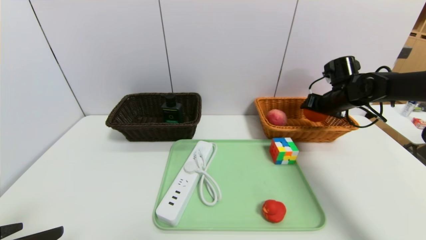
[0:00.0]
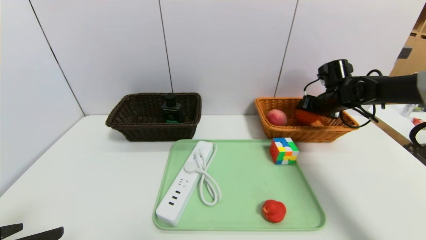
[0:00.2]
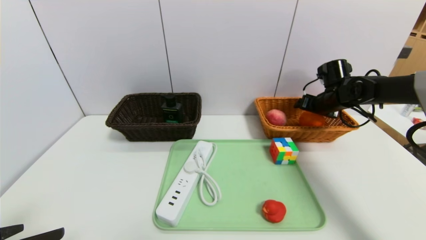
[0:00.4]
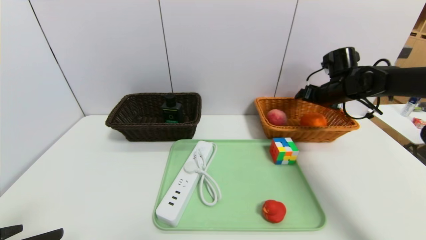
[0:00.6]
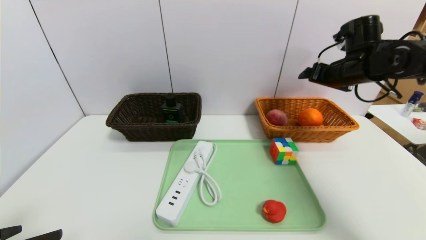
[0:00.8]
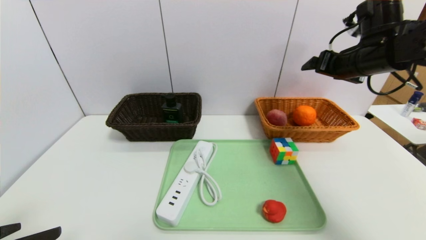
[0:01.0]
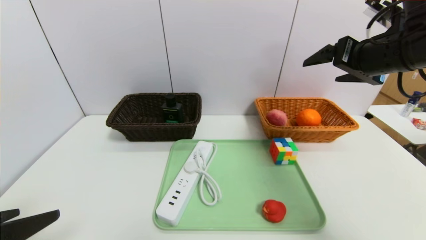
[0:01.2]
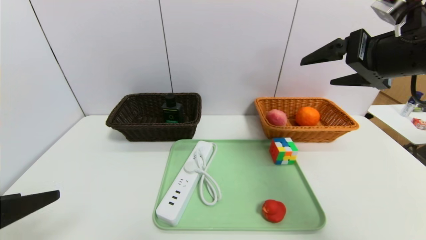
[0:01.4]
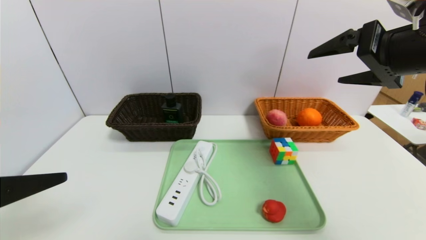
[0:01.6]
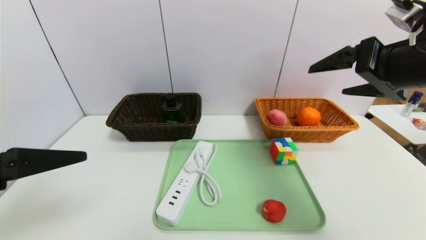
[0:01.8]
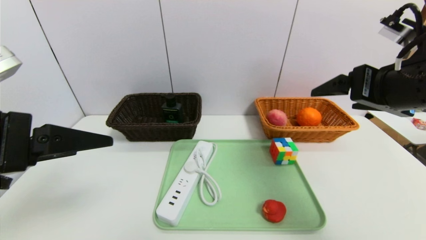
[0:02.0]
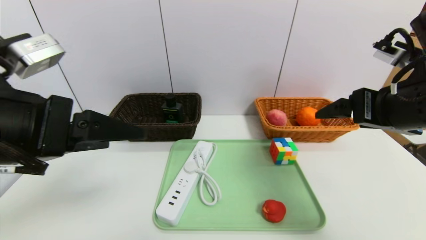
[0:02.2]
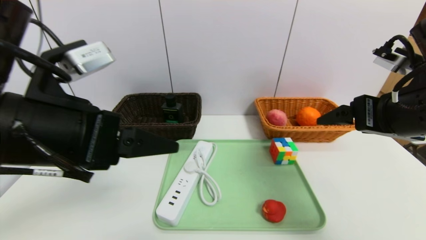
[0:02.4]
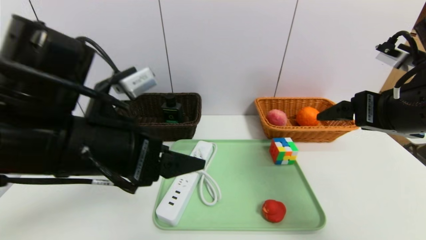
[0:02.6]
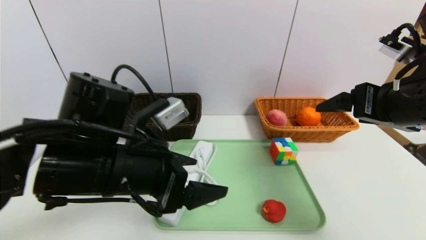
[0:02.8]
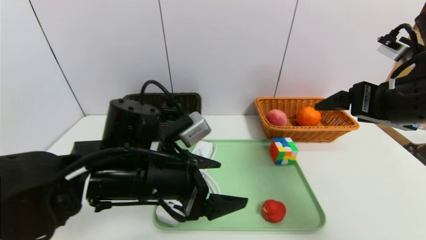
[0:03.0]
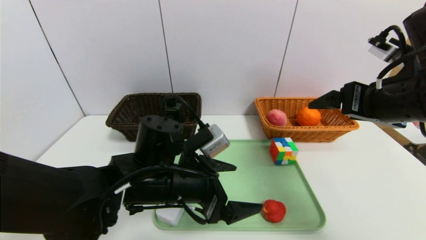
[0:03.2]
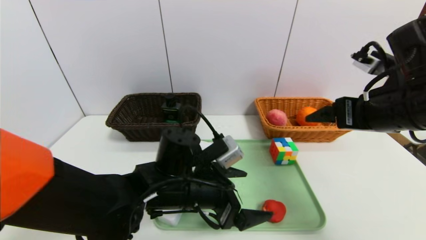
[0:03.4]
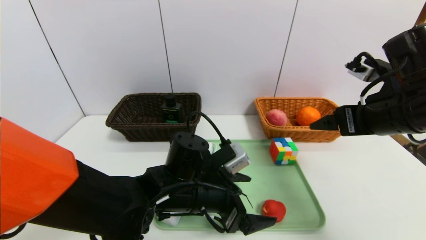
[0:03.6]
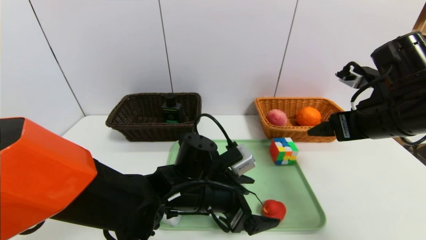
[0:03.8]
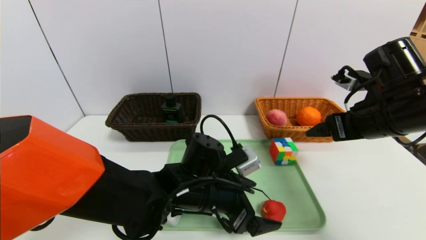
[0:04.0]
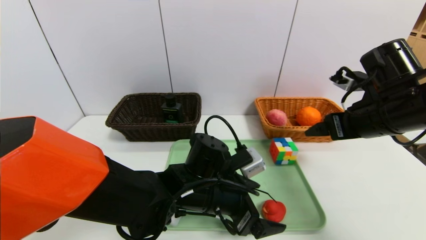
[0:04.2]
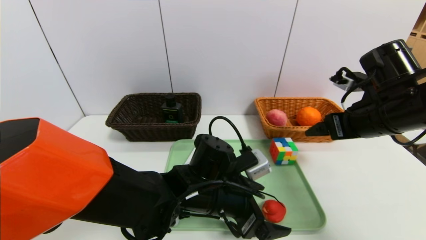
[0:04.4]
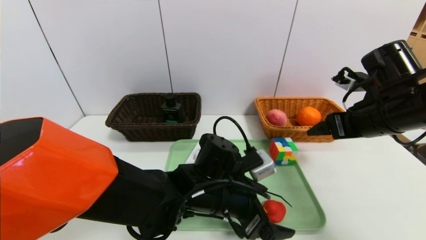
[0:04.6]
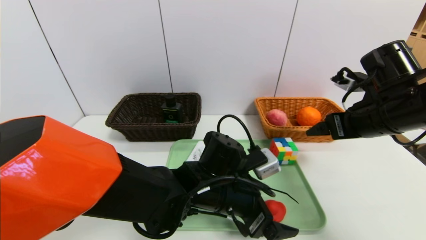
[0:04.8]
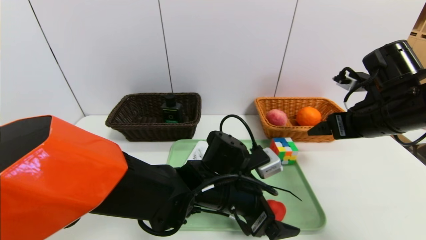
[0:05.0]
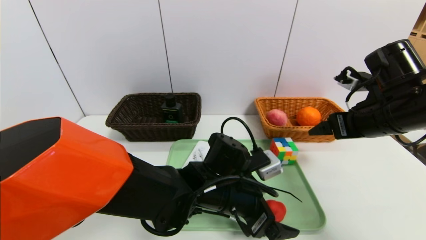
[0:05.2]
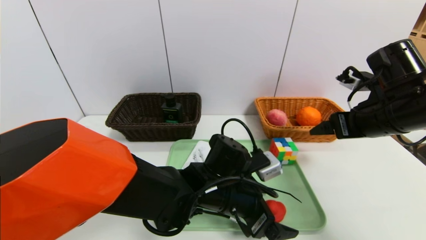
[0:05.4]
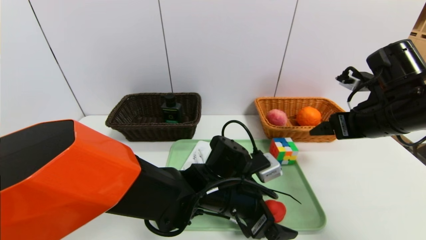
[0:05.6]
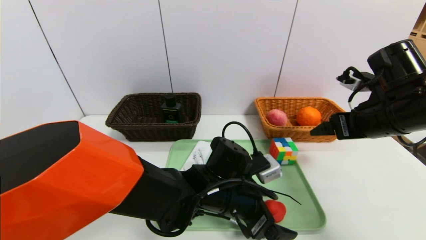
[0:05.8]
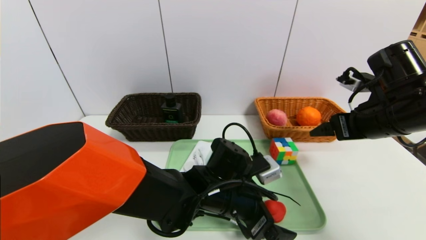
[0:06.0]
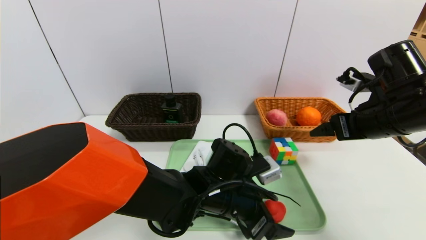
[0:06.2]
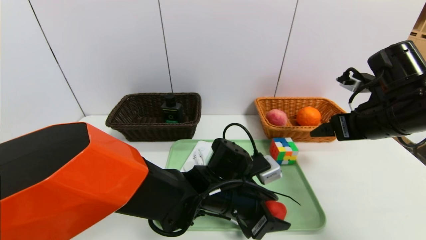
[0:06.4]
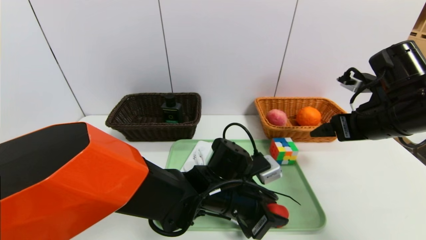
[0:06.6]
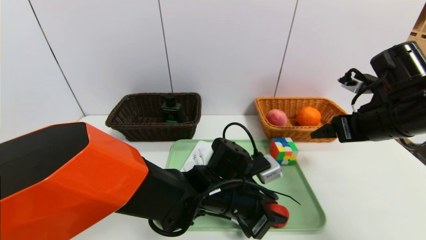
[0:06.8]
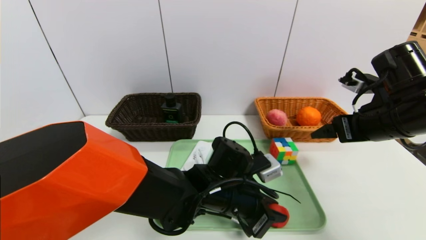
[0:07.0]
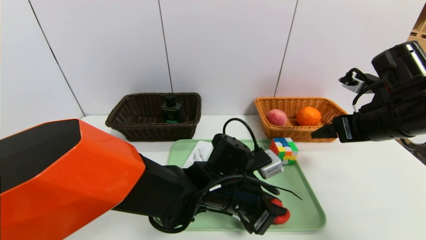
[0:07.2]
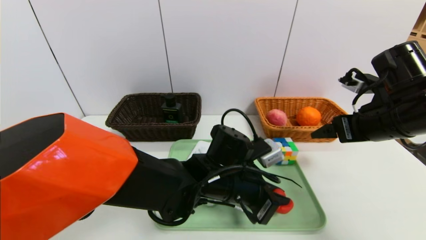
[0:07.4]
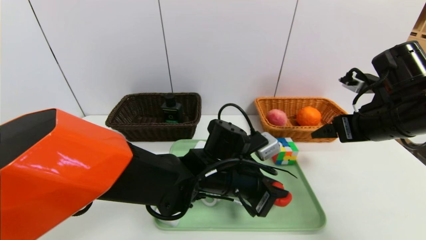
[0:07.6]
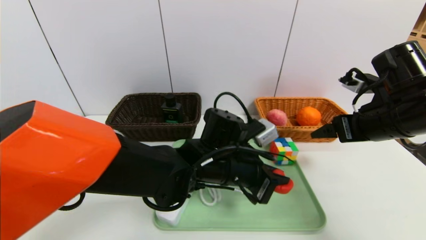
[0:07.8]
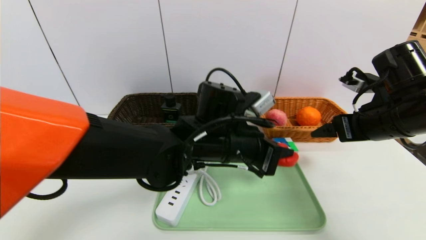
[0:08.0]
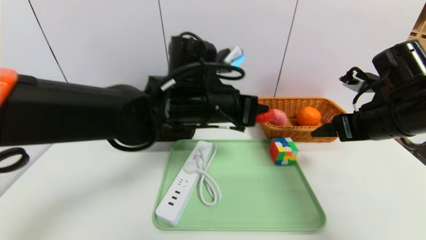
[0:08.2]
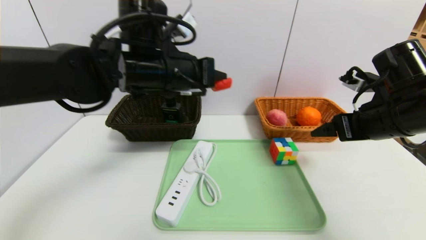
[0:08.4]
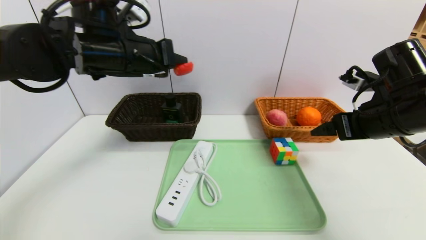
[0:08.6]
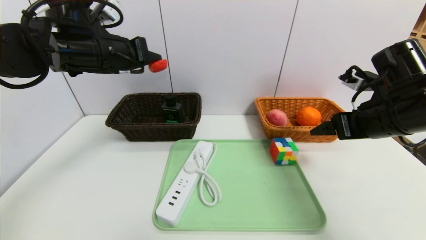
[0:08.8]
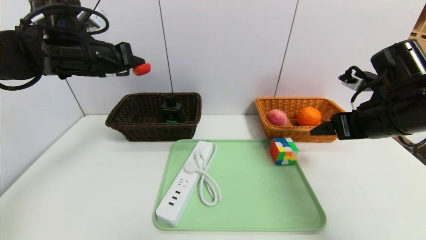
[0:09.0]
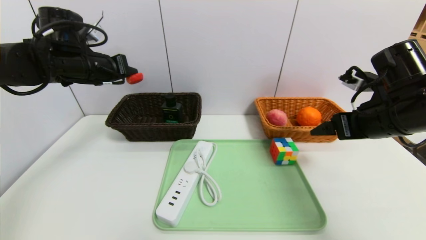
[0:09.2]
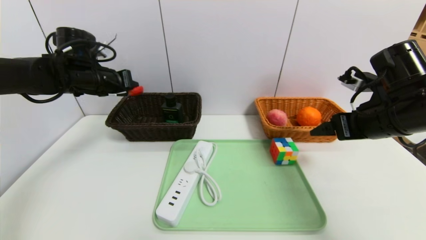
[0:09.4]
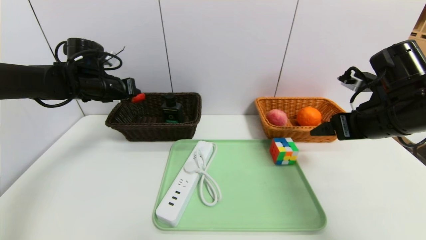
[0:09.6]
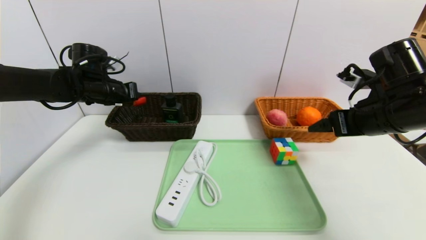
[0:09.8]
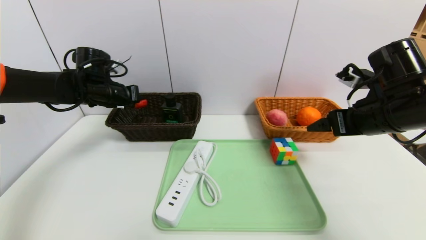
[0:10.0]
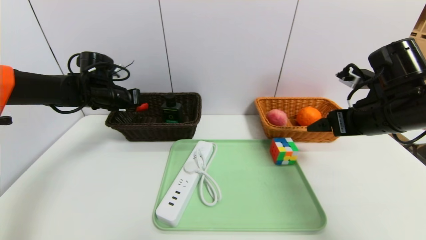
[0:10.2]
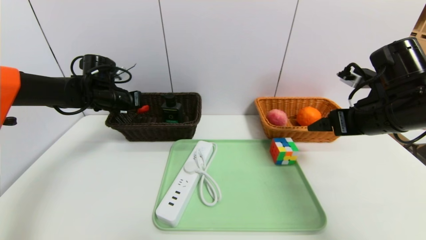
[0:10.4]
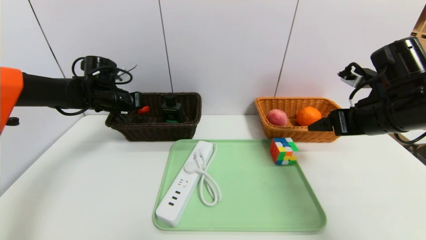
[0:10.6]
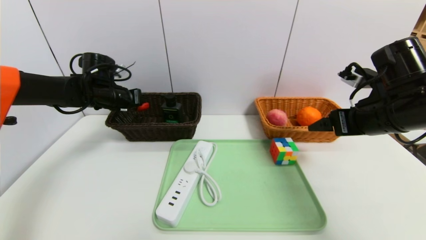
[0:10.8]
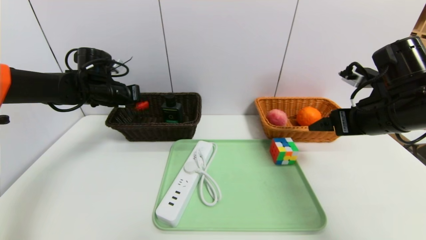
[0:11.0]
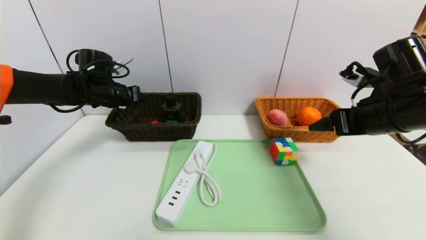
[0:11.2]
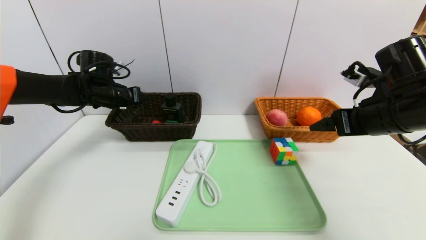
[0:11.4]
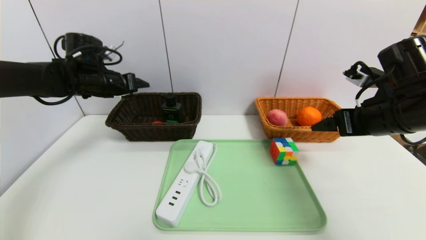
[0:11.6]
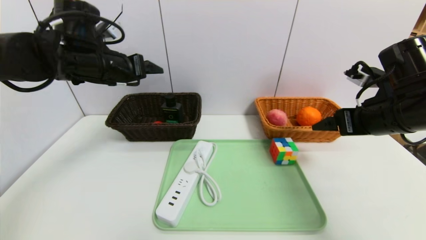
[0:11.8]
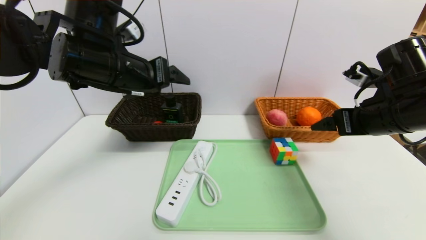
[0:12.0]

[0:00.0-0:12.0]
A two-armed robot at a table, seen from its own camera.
Task of the whole recording: place the food in the right basket with the right gripper, and place the non food items in the left basket with the left gripper.
Step, 0:00.6 to 0:11.4: Grasp the red duck and put it in the left basket.
0:00.0 to 0:01.6: The right gripper travels backward and upward by about 25 cm, and opens, while the left gripper goes roughly 5 cm upward.
0:01.6 to 0:03.0: The left gripper heads to the right, forward and downward, covering about 25 cm, while the right gripper goes approximately 5 cm downward.
0:03.0 to 0:04.4: The left gripper travels to the right and downward by some 10 cm. Meanwhile the right gripper is displaced forward and downward by approximately 10 cm.
0:04.4 to 0:06.0: The grippers make only small movements.
0:06.0 to 0:07.6: The left gripper closes.
0:07.6 to 0:09.0: The left gripper moves to the left and upward, about 30 cm.
0:09.0 to 0:10.4: The left gripper moves downward and forward, some 15 cm.
0:10.4 to 0:12.0: The left gripper moves backward, to the right and upward, some 25 cm, and opens its fingers.

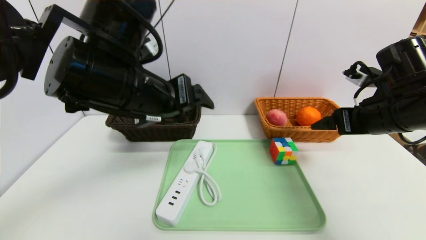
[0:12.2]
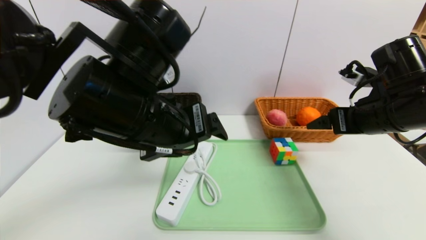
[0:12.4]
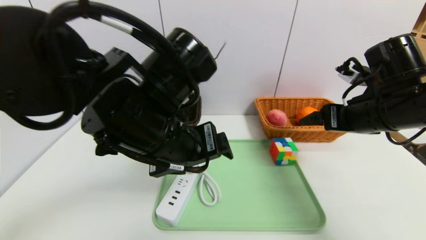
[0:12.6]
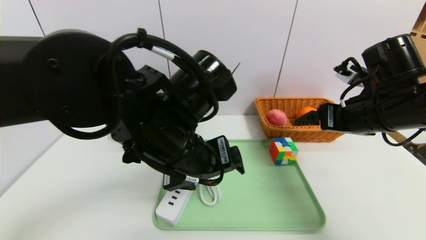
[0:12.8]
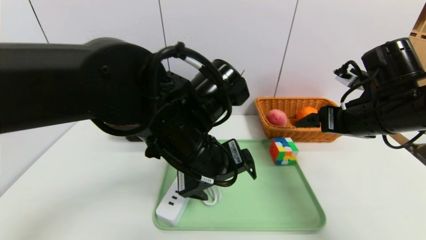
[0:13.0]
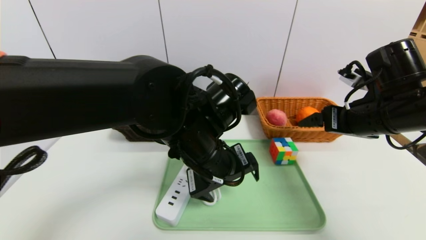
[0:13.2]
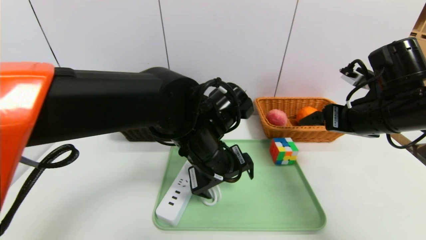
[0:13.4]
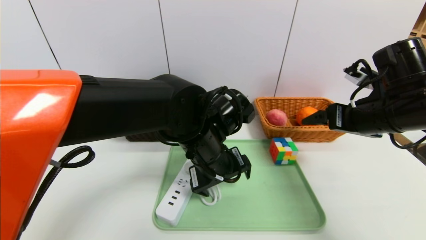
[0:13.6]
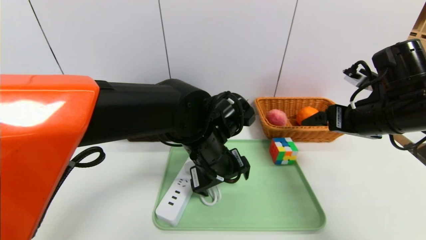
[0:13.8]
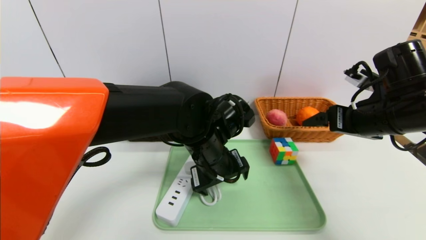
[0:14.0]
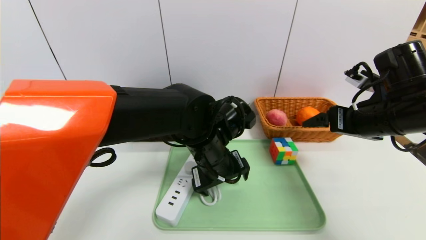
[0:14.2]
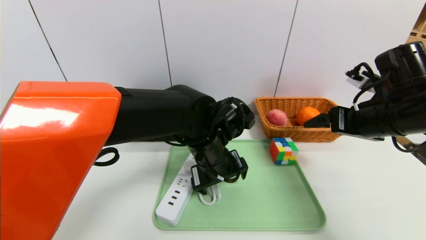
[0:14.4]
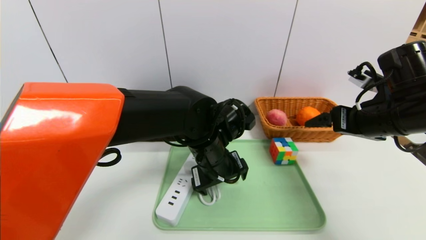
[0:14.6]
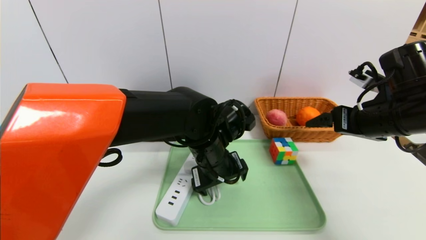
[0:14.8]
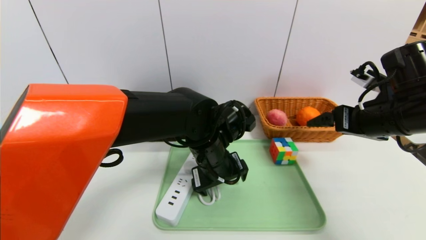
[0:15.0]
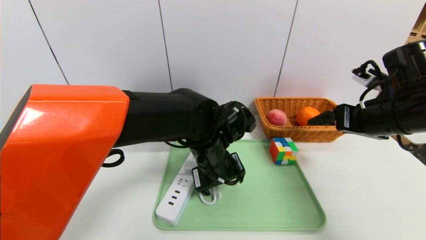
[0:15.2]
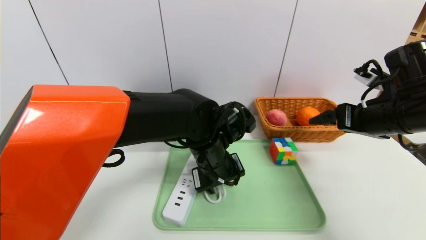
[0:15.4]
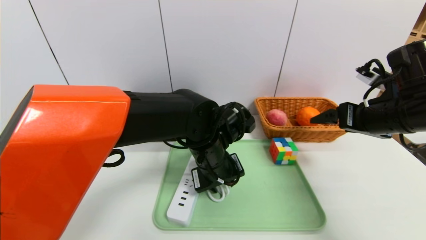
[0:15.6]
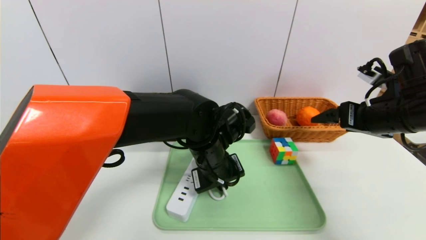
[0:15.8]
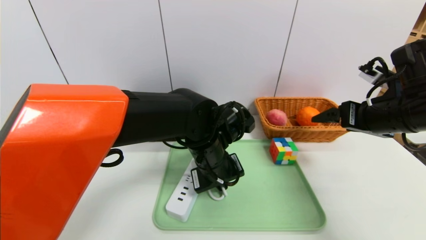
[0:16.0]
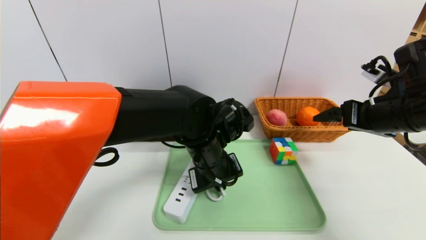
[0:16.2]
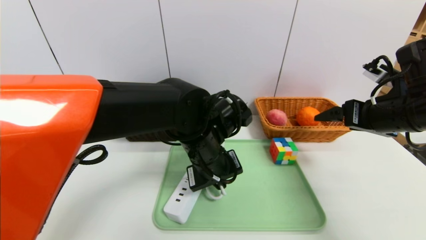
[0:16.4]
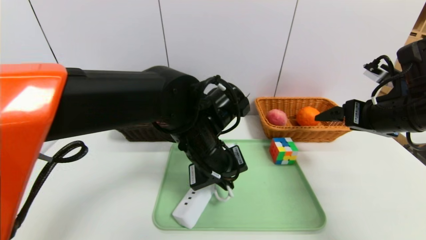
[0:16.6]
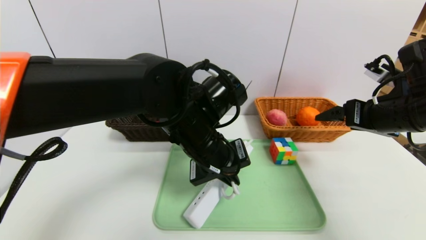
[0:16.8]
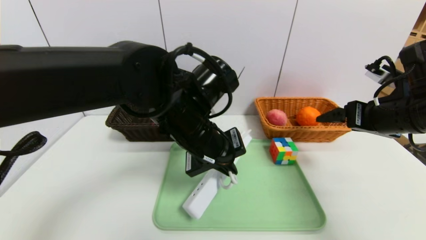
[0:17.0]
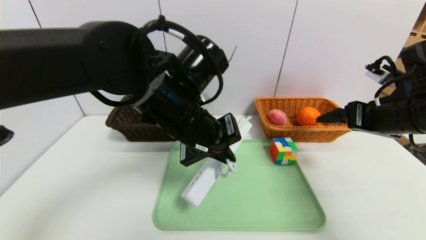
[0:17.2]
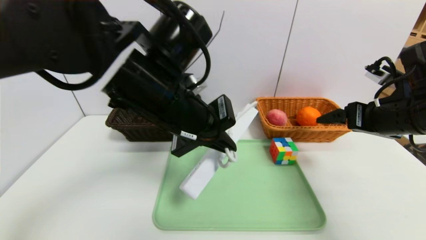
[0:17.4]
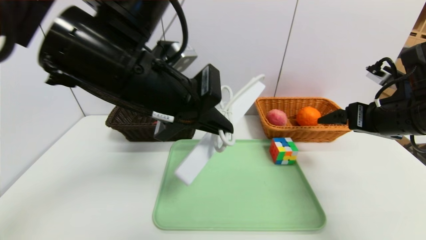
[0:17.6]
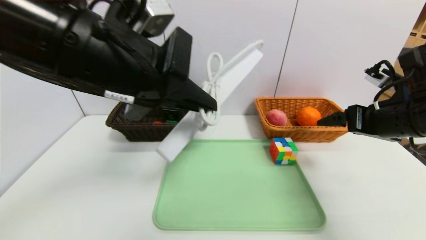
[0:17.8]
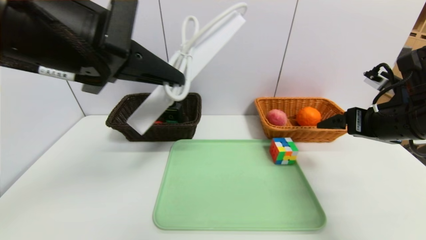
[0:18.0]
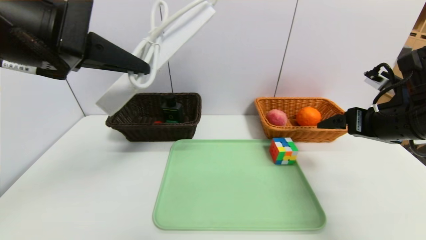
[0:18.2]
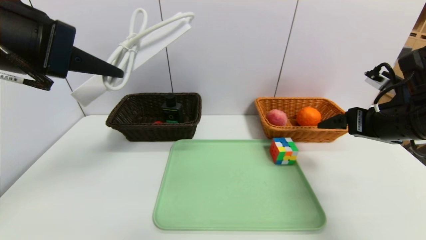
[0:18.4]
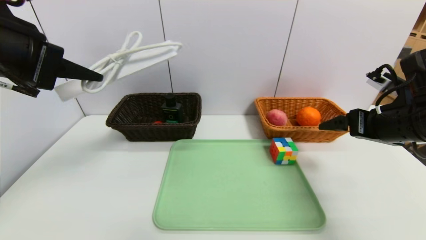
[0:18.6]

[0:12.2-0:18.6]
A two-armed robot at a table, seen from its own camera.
Task of the whole recording: place the food in the right basket with the right gripper, and place the non food items in the left basket with the left gripper.
0:12.2 to 0:13.8: The left gripper is displaced downward and to the right by roughly 15 cm.
0:13.8 to 0:15.4: The left gripper closes.
0:15.4 to 0:17.0: The left gripper travels upward by approximately 10 cm, and closes its fingers.
0:17.0 to 0:18.6: The left gripper travels to the left and upward by about 25 cm.
